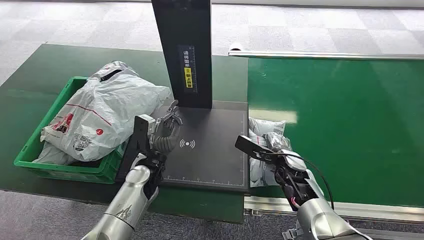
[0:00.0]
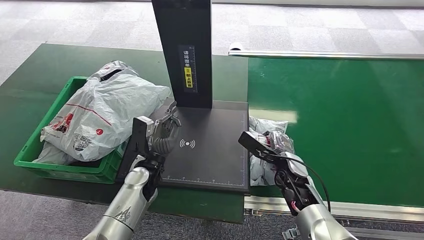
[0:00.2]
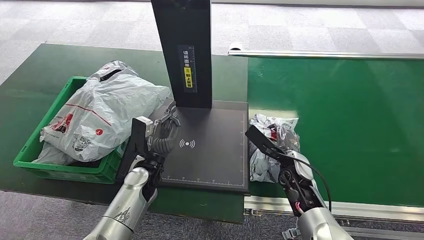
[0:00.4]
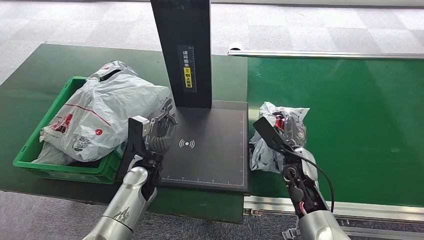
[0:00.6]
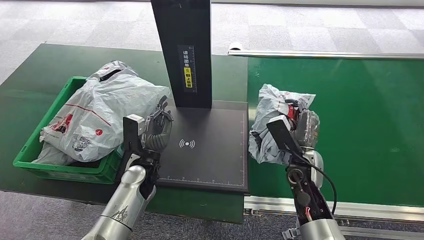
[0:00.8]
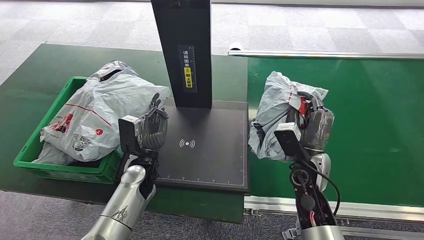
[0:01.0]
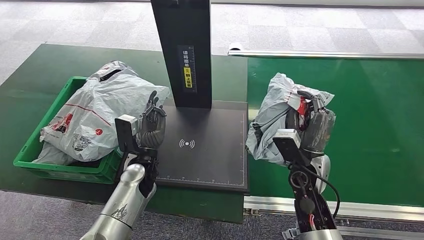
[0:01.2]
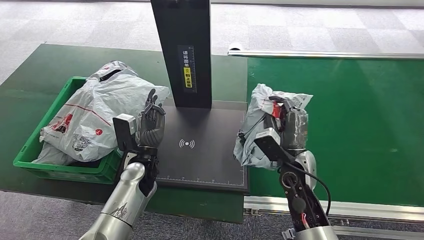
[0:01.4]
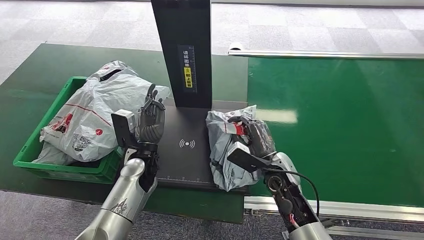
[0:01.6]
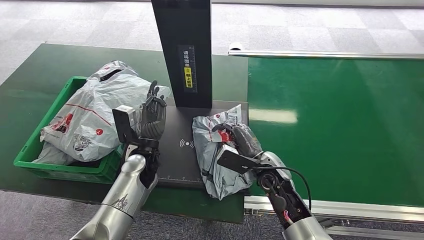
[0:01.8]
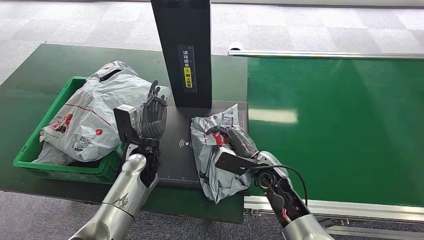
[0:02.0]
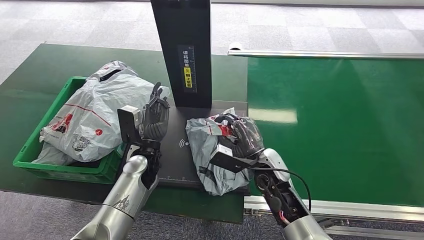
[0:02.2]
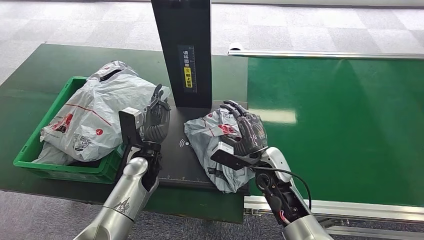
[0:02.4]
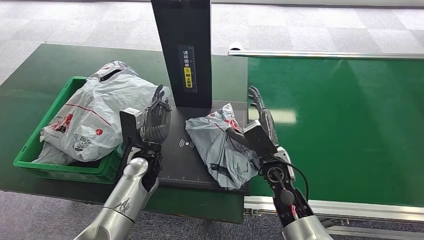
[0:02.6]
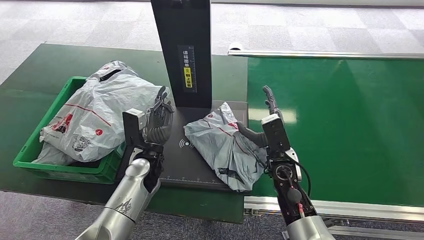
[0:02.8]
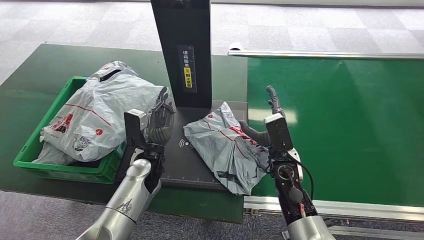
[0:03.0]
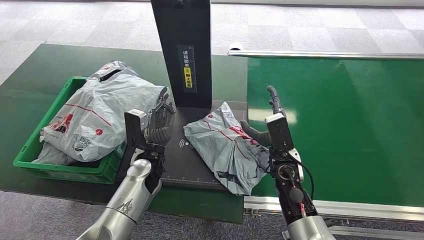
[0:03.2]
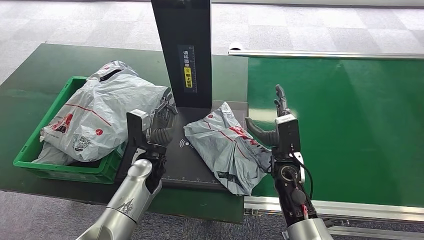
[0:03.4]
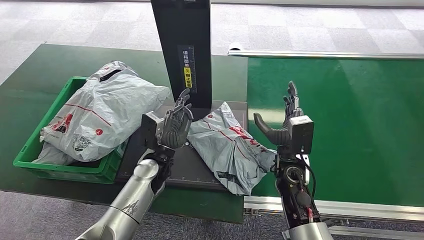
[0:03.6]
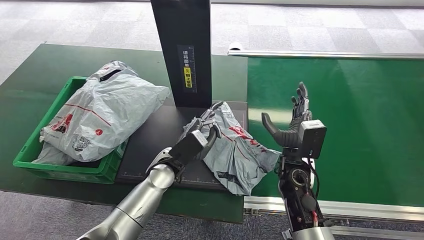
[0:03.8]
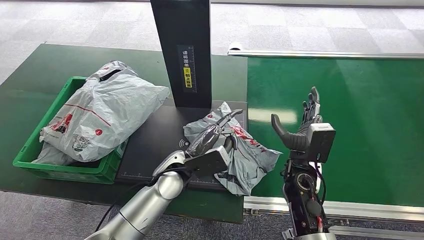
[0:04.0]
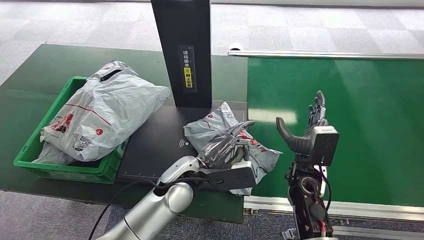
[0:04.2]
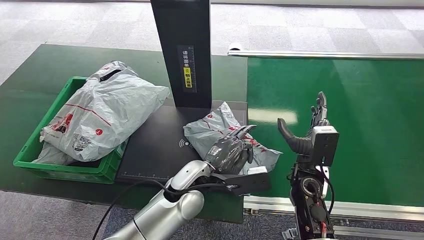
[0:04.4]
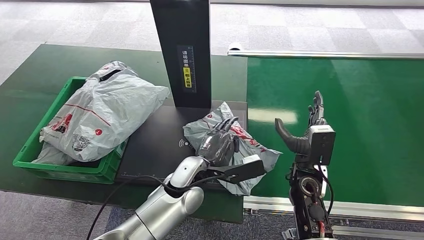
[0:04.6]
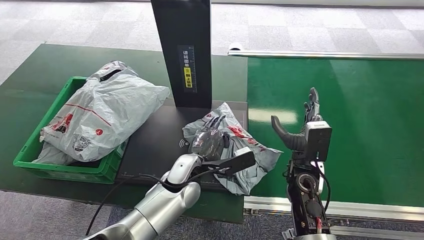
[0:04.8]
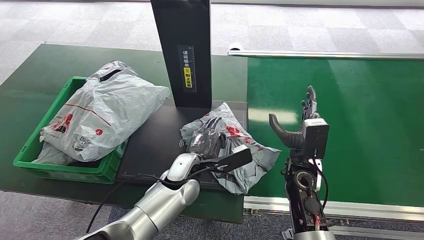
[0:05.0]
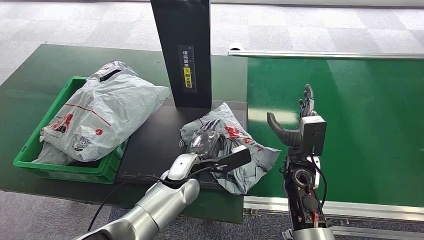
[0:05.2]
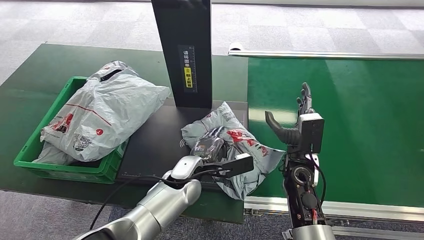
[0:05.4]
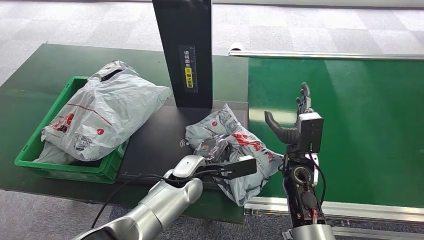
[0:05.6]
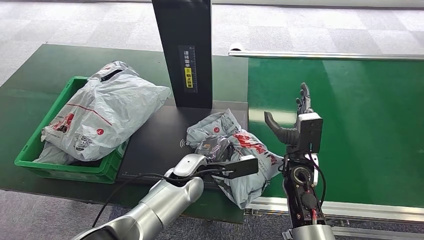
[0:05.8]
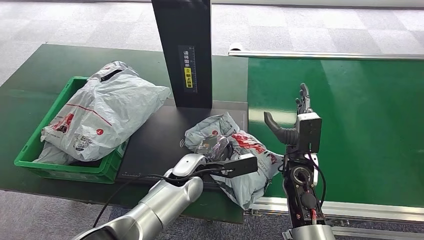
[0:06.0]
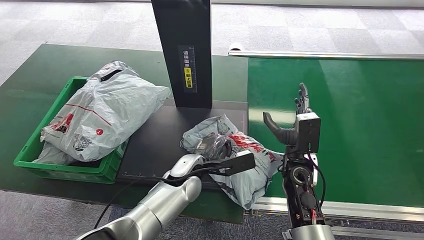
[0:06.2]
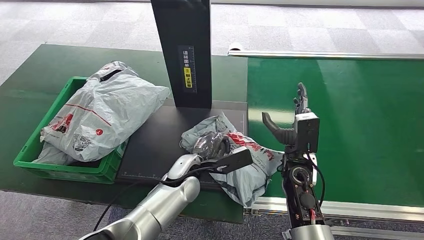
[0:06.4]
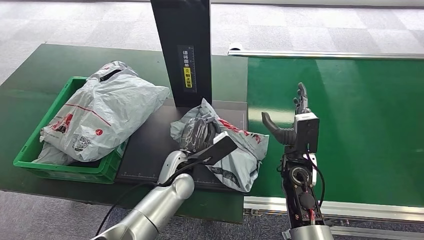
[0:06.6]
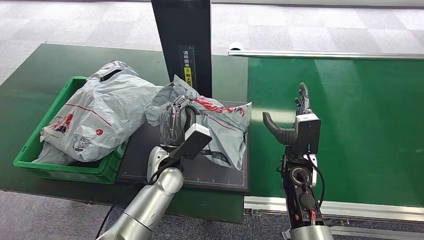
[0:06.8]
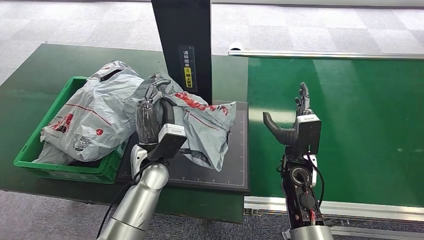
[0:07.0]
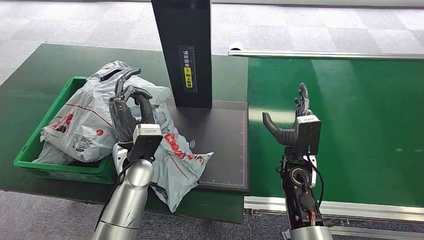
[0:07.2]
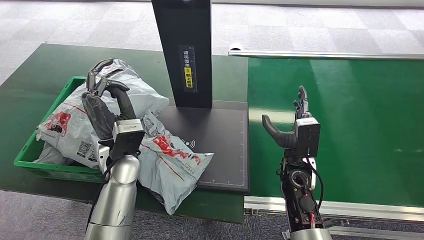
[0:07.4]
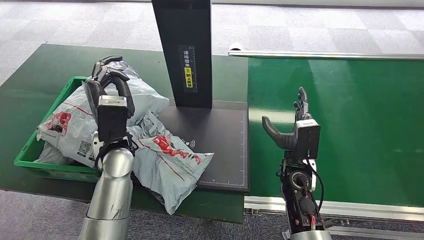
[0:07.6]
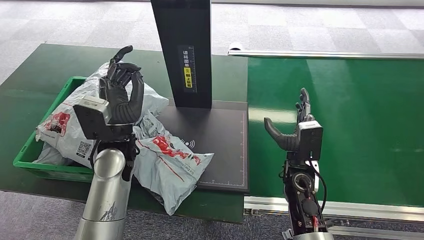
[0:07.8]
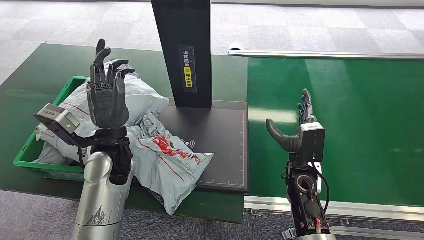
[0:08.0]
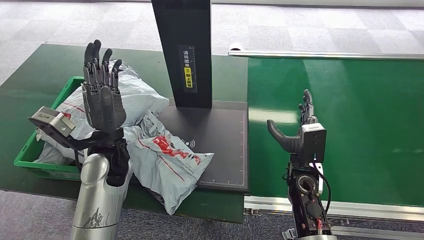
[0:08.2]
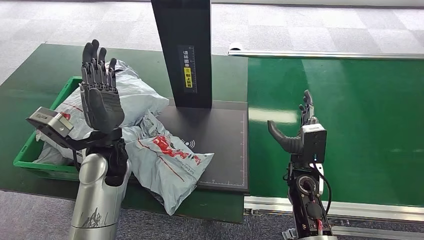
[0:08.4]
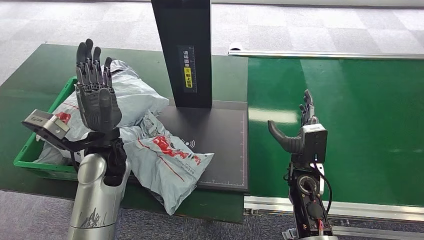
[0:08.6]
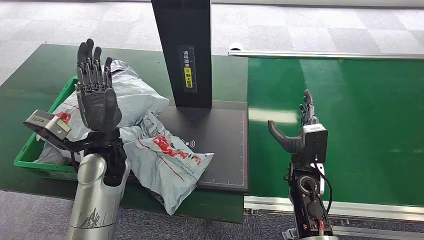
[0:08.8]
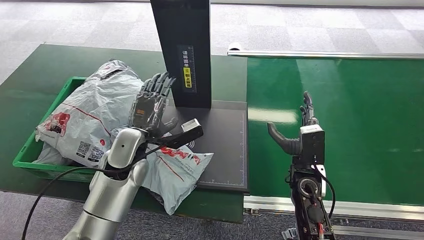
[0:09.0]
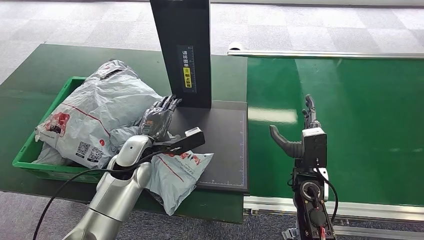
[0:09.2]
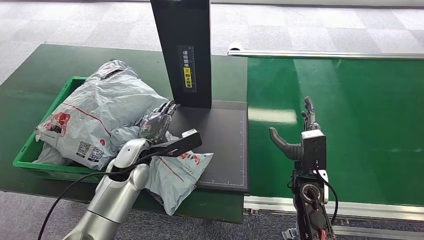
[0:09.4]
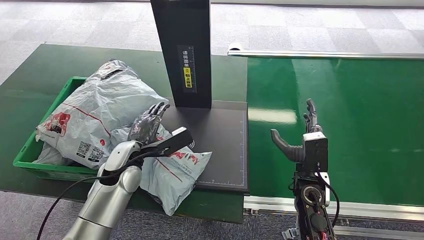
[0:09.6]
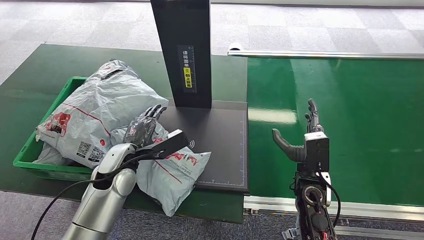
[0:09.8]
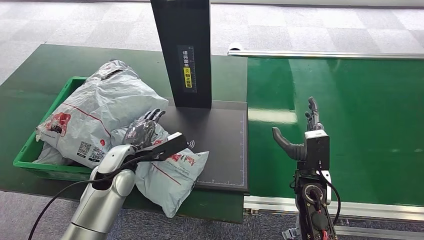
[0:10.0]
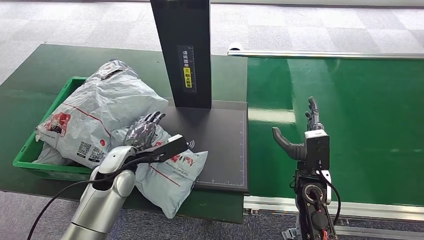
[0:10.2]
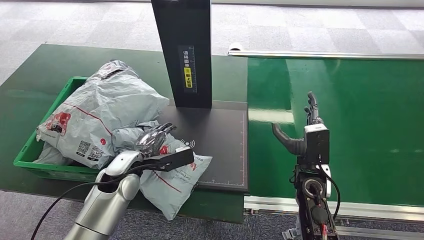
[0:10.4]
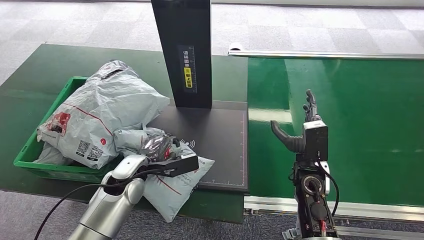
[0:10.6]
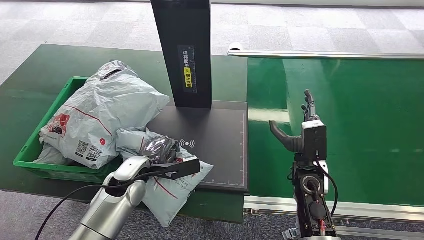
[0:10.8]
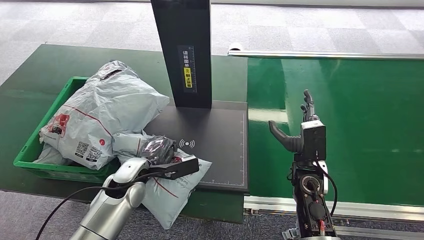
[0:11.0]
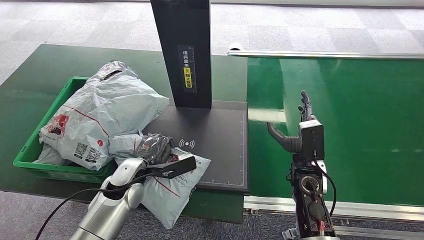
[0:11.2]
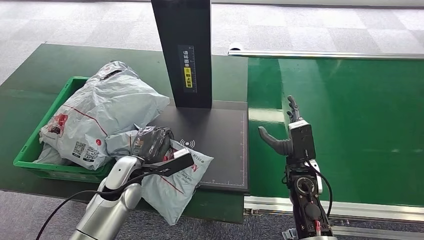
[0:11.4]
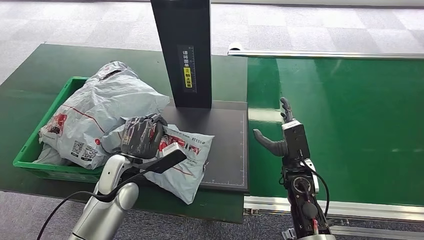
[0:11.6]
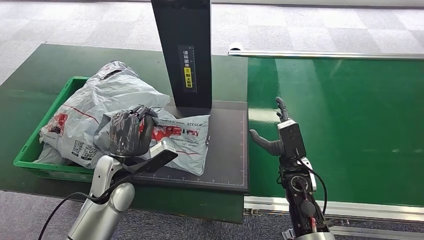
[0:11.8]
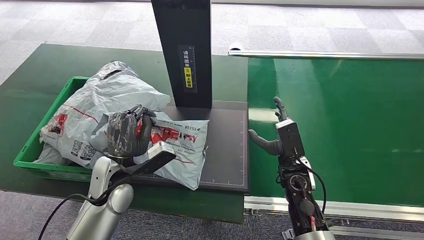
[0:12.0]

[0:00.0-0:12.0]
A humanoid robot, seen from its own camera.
Step, 0:00.0 to 0:01.0: Pick up the package from the conveyor belt.
Step, 0:01.2 to 0:03.6: Place the package onto the inbound machine.
0:03.0 to 0:04.4: The left hand shifts about 15 cm to the right and backward; the right hand moves about 5 cm.
0:04.4 to 0:06.0: The left hand moves about 5 cm.
0:09.0 to 0:10.4: The left hand goes some 5 cm downward.

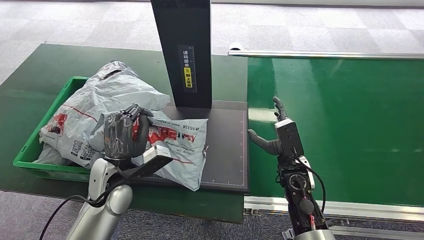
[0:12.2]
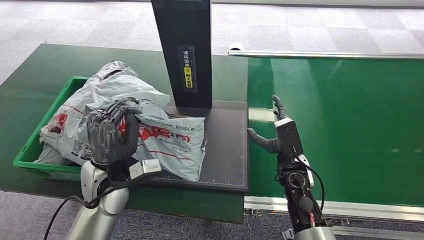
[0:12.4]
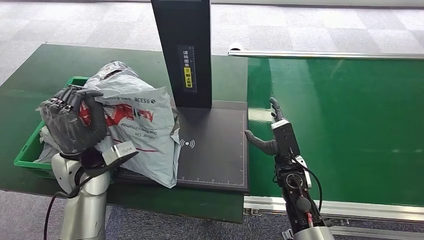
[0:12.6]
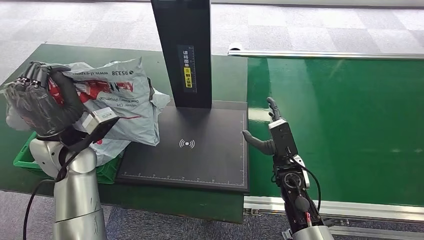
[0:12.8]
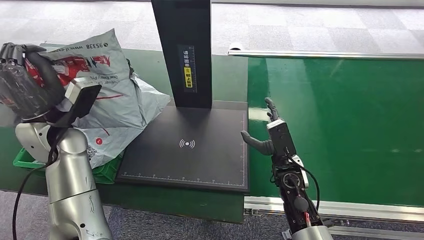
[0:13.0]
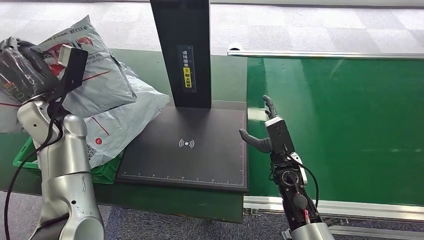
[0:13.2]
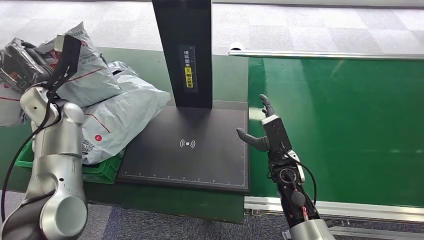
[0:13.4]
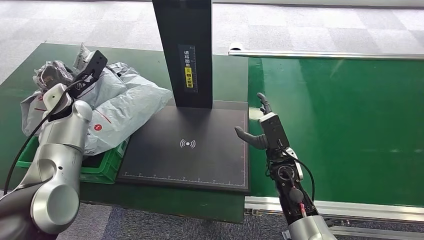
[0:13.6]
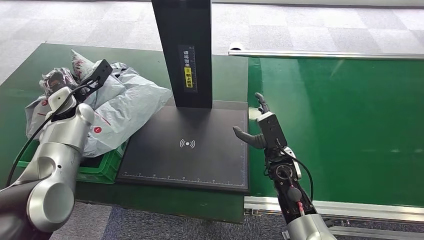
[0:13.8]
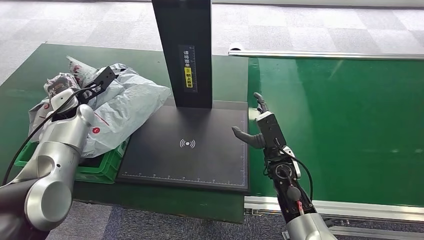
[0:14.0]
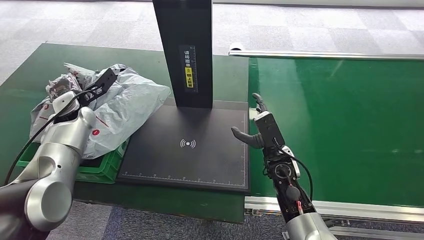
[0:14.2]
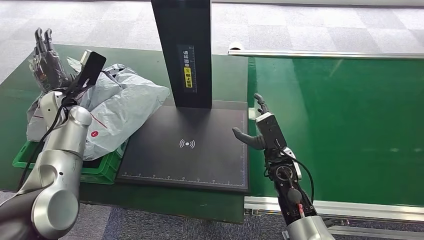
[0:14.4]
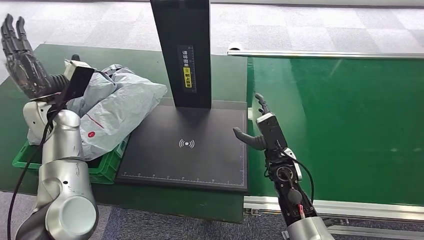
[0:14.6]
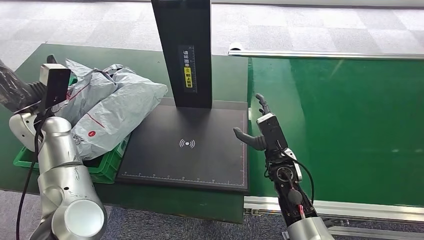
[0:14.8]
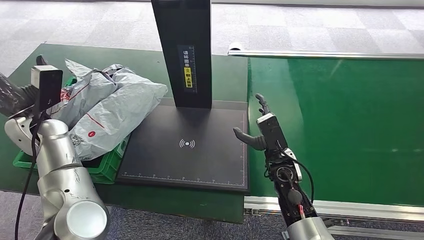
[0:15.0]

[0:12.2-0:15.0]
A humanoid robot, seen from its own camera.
Step, 0:13.0 to 0:15.0: Place the package into the parcel locker.
0:13.6 to 0:15.0: The left hand goes approximately 5 cm backward.
